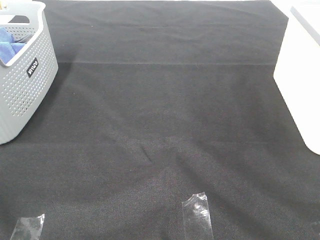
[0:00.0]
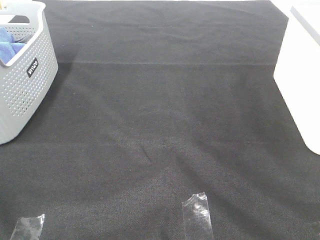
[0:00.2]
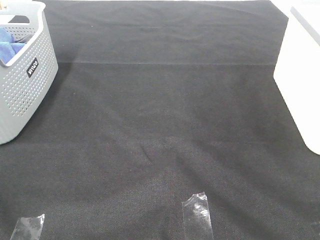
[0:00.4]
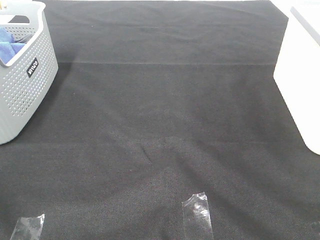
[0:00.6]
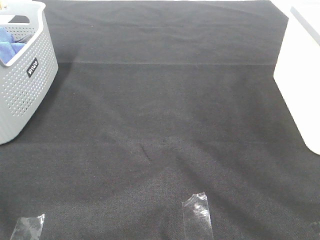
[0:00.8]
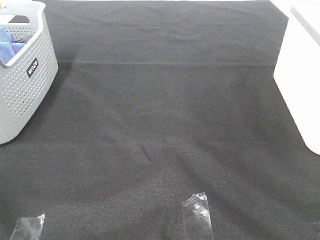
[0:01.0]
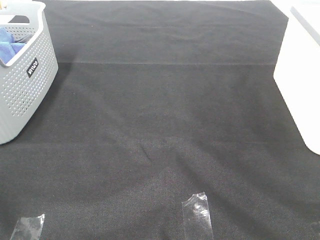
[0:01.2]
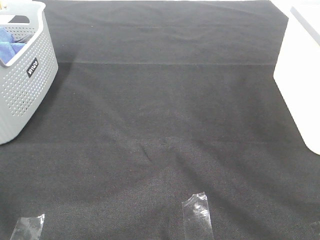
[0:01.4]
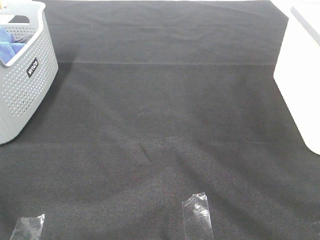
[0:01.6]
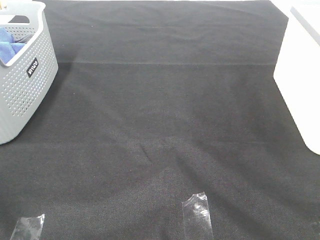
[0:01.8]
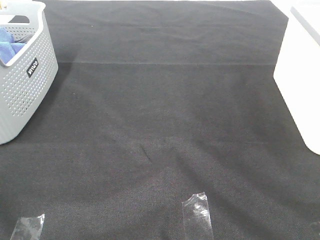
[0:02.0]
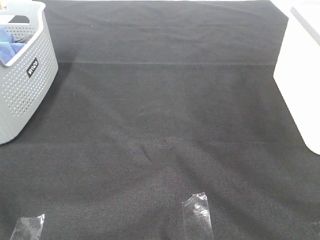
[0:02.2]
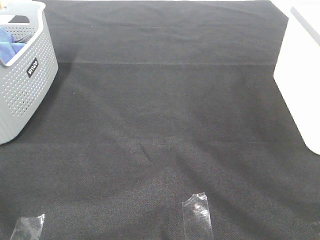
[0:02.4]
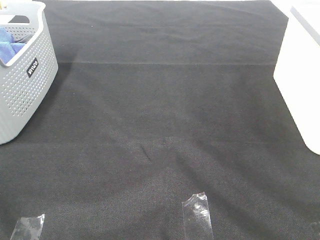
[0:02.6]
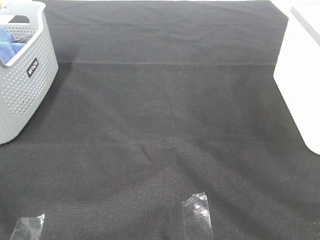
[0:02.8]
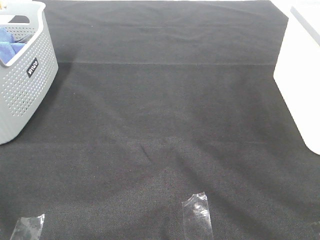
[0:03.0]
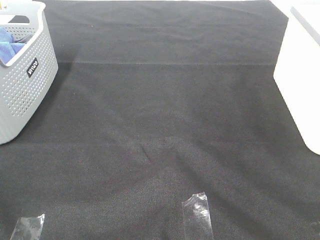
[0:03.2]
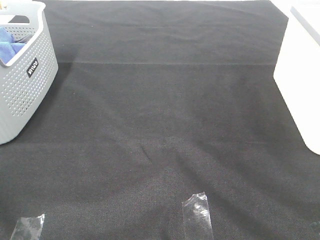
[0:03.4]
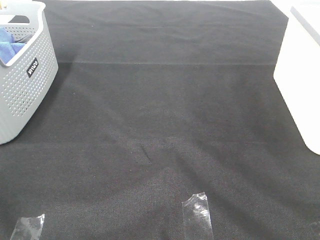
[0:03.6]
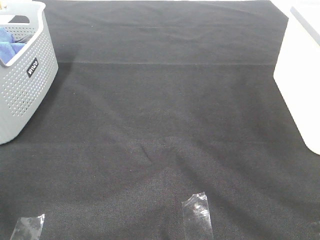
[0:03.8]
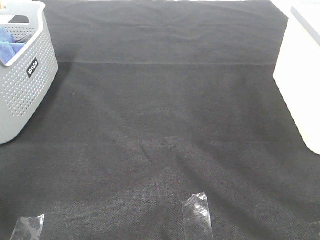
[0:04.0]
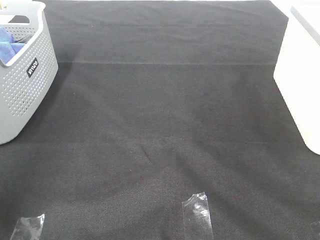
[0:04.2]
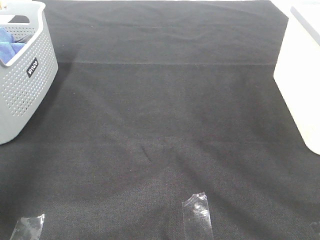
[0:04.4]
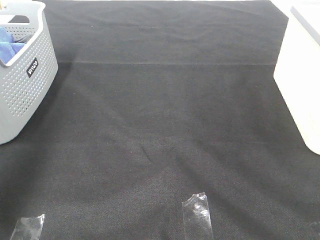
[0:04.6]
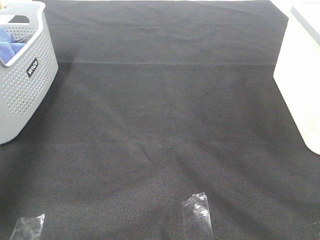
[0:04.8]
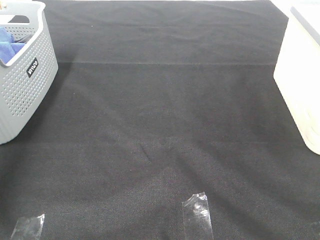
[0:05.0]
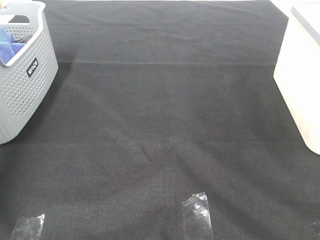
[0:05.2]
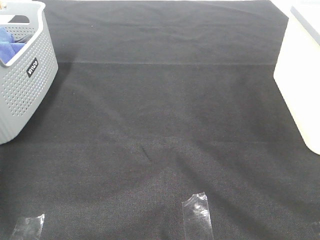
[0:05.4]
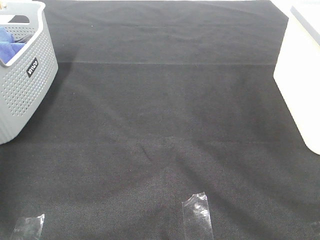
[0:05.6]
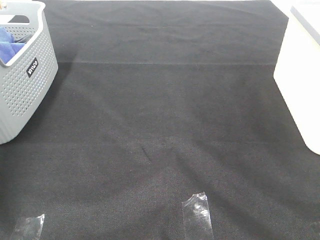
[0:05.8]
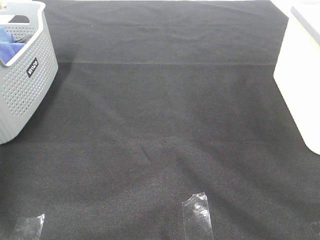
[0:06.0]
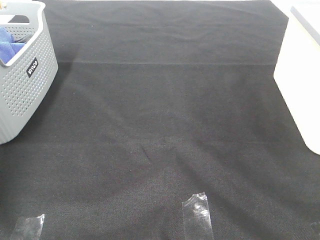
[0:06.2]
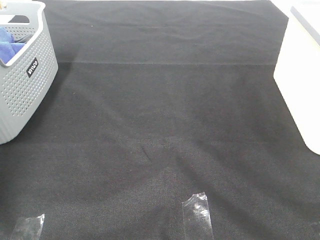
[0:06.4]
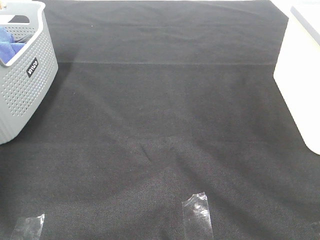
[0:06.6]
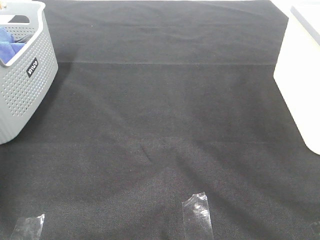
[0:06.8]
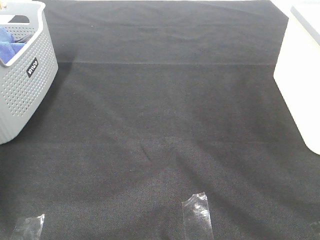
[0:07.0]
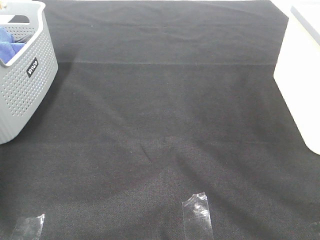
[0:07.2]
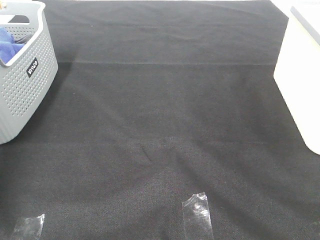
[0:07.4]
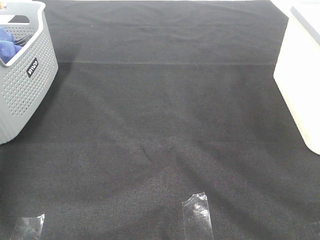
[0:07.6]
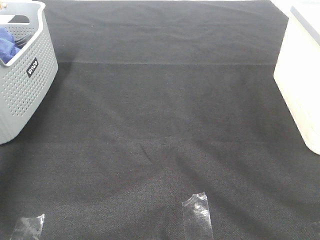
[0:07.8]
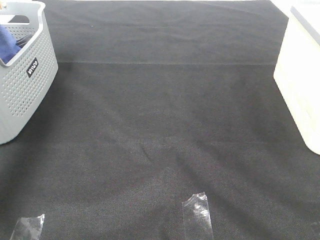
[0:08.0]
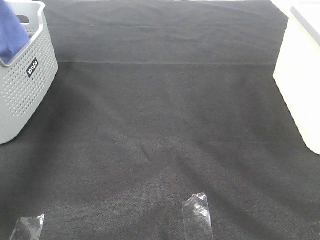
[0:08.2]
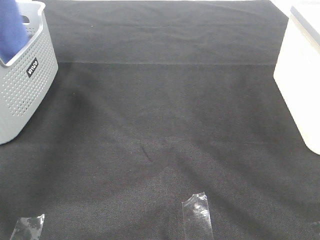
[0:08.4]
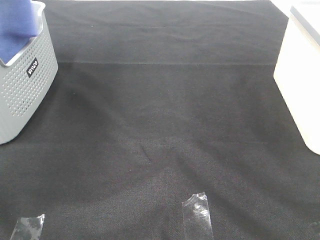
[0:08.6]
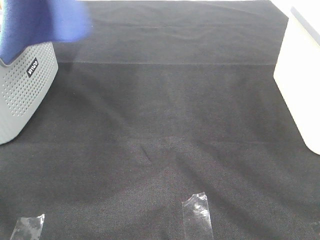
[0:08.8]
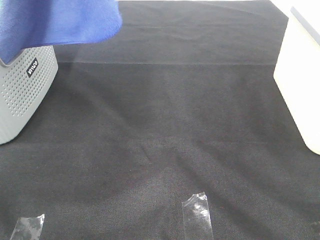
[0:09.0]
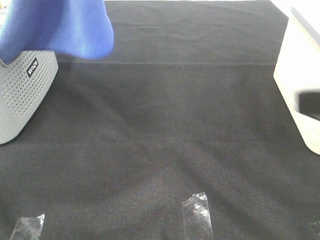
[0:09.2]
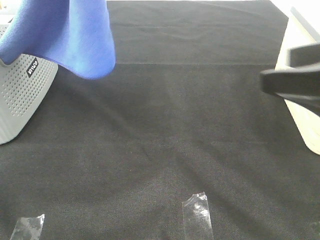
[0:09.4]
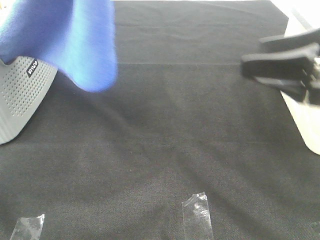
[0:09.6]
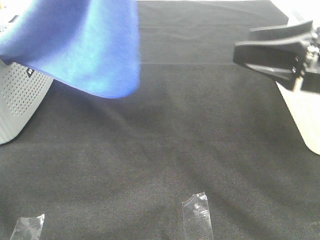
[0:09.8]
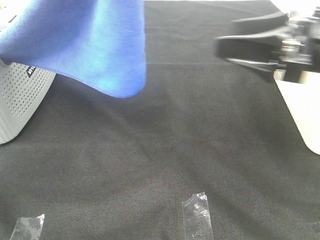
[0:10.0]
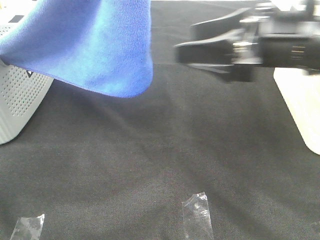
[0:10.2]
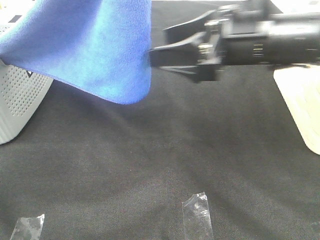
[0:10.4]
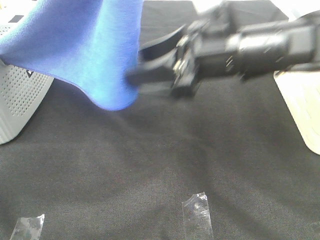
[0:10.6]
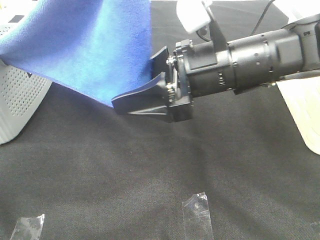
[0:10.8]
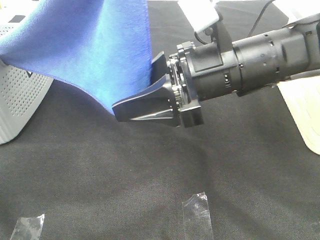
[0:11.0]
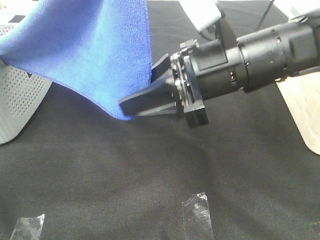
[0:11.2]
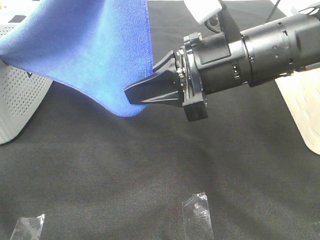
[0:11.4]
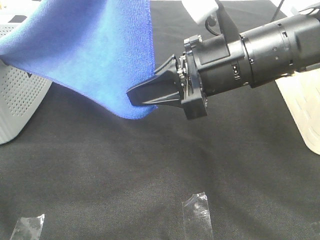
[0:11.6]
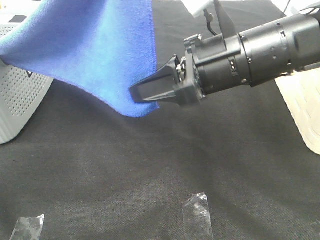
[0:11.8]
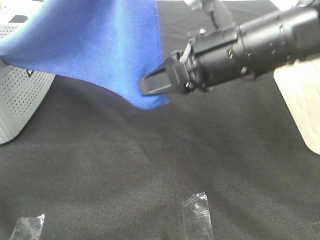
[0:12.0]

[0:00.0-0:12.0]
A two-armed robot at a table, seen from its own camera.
Task of the whole recording: Remove the towel and place it.
Step, 0:08.6 to 0:11.6: Right hand: grab a corner of the blue towel and straighten it.
0:00.0 to 0:03.0: Both grippers stay put.
0:03.0 to 0:04.4: The left gripper moves forward and upward, roughly 20 cm.
0:04.4 to 0:06.0: The left gripper is displaced forward and downward by about 30 cm.
0:07.6 to 0:09.0: The left gripper moves to the right, upward and backward, roughly 35 cm.
0:09.0 to 0:10.4: The right gripper shifts roughly 25 cm forward and to the left; the left gripper travels to the right and backward by roughly 10 cm.
0:10.4 to 0:12.0: The right gripper closes up.

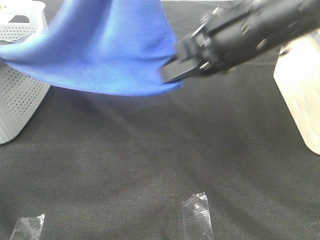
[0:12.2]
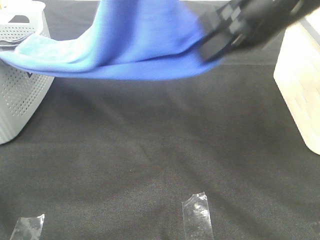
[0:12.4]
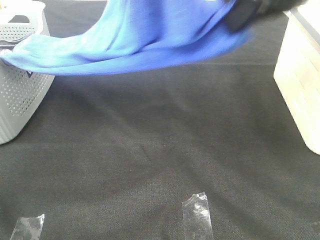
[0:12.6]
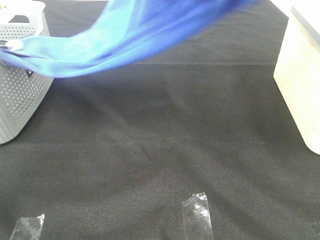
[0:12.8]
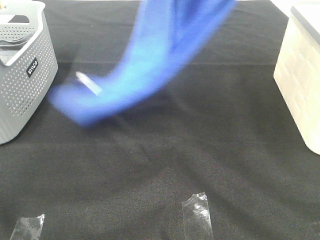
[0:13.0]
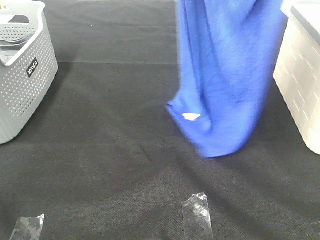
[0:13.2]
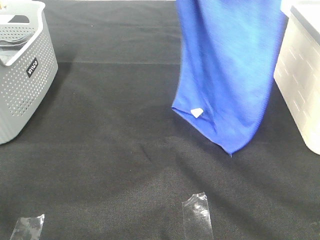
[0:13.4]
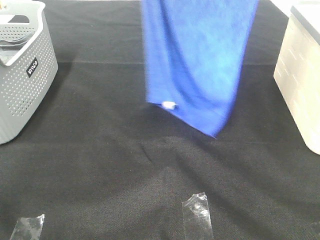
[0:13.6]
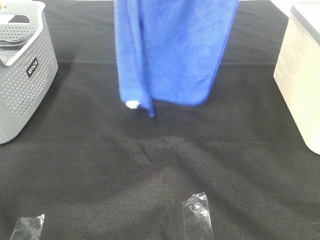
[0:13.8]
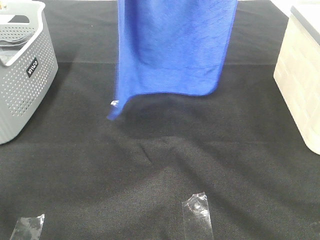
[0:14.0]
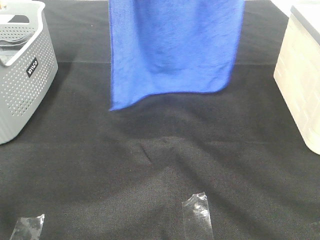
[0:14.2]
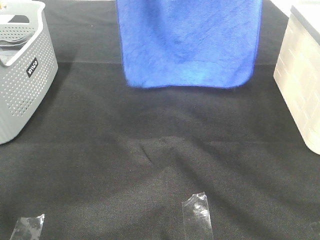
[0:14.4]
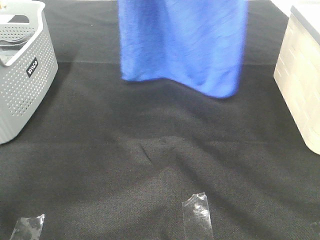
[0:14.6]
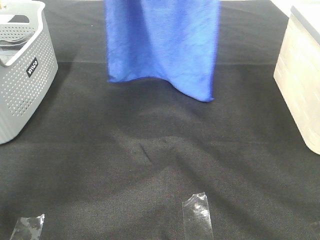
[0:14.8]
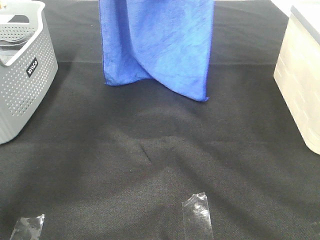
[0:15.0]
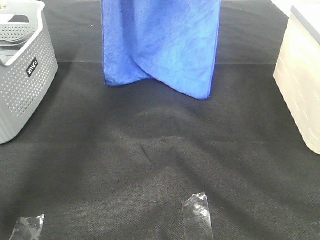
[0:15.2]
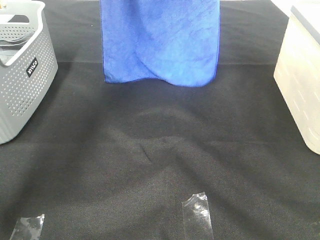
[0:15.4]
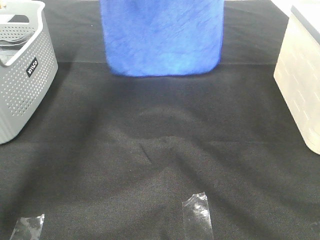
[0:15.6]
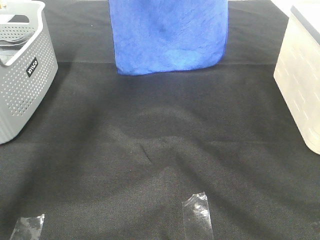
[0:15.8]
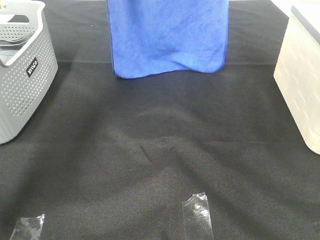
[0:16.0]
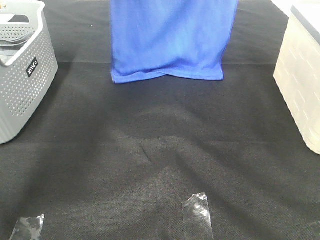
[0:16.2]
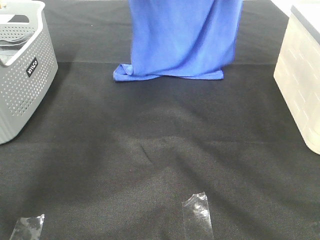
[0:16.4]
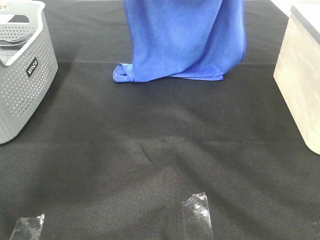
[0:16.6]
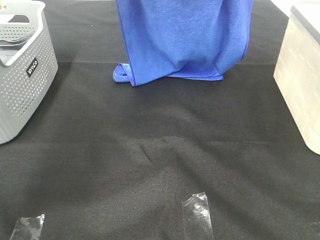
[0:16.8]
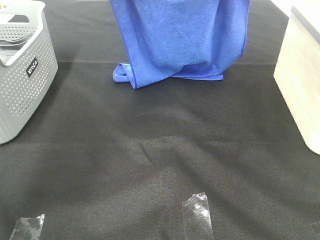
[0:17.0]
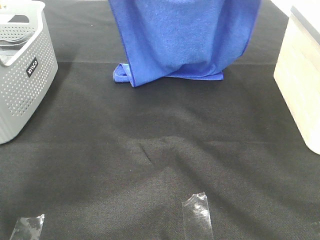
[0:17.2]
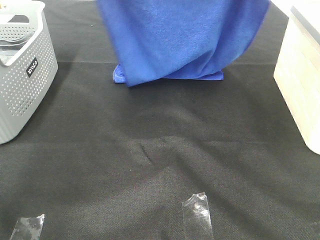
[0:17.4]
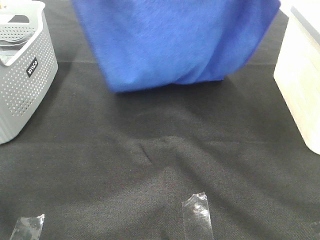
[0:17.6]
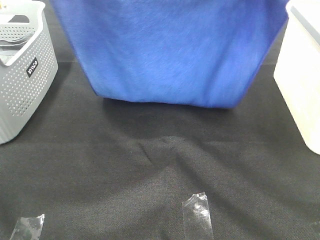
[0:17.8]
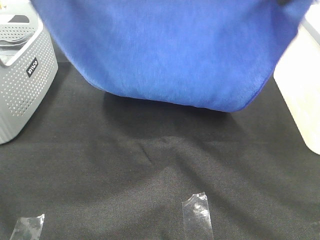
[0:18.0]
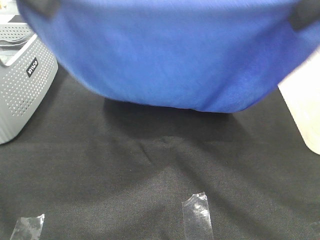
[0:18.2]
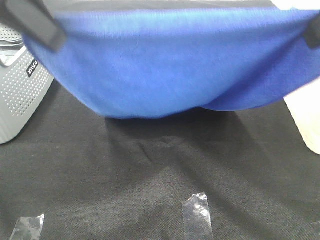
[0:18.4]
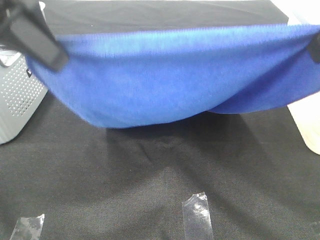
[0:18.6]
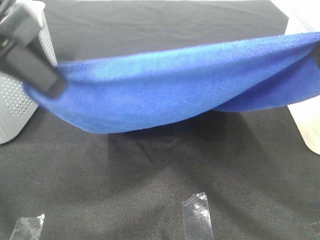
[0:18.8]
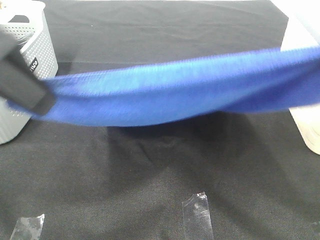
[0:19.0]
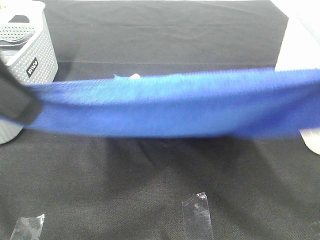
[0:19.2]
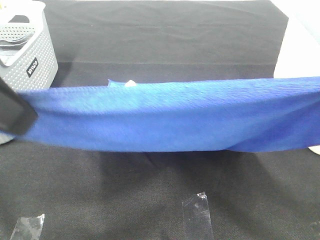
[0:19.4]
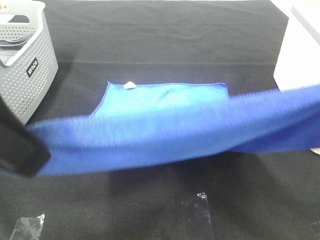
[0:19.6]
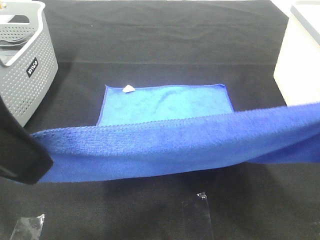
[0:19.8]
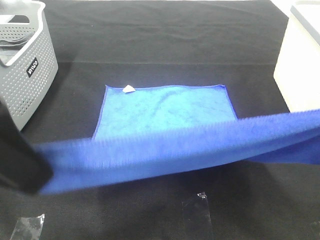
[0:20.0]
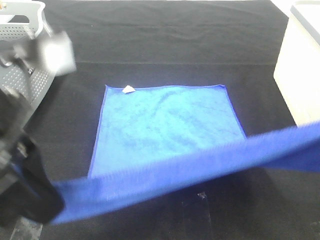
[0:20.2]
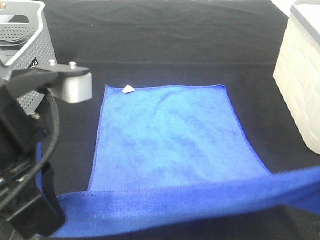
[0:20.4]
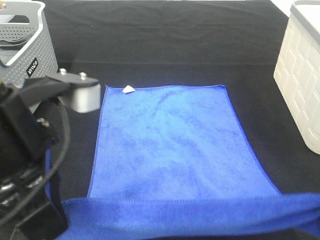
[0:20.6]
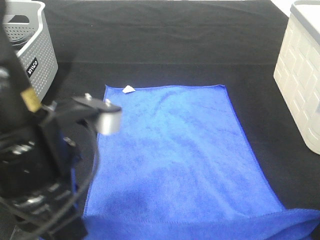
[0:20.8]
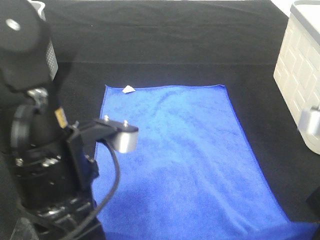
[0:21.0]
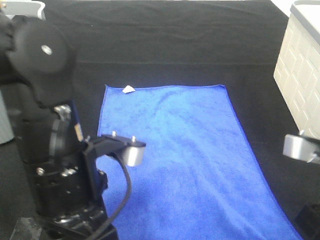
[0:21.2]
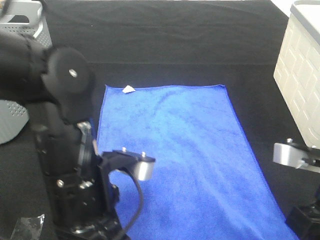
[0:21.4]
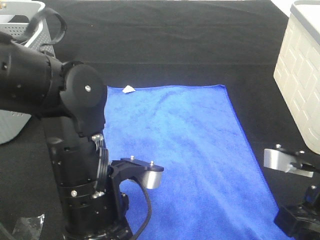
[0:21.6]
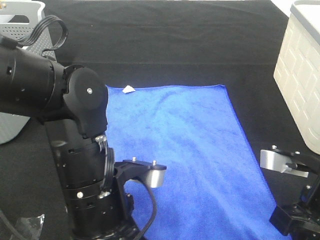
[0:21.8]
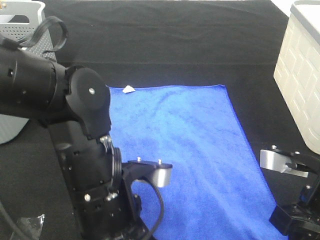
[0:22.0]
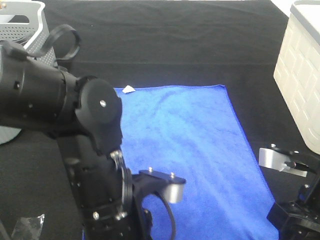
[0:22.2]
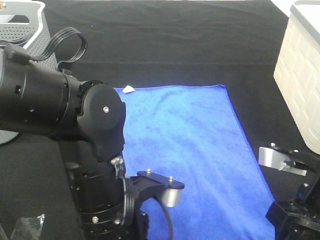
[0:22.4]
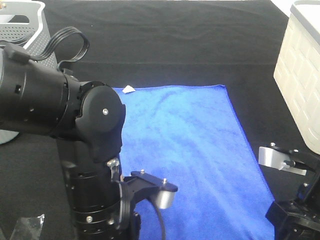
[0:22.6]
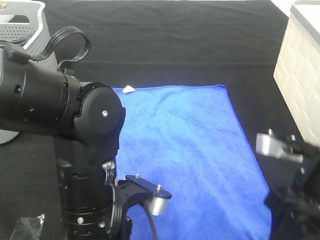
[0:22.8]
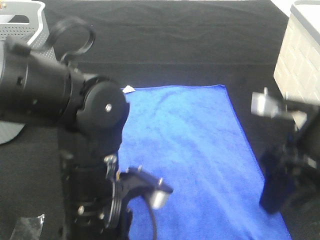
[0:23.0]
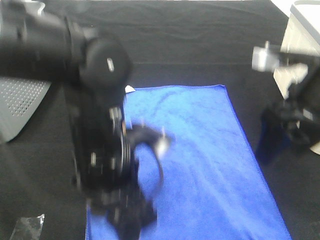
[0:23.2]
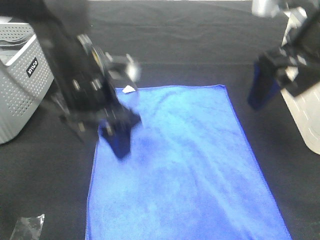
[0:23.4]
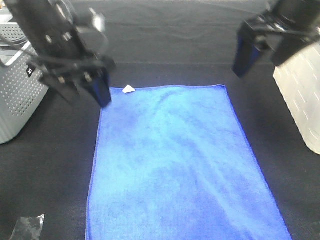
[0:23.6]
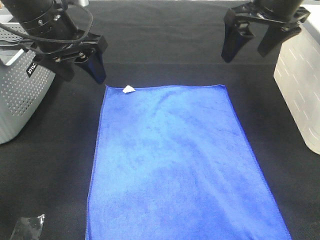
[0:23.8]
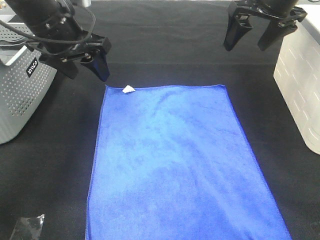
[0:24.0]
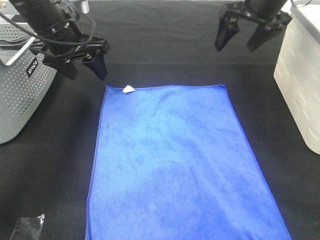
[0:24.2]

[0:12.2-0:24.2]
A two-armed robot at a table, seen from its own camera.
Task of the whole recording: Remove the towel and place it.
Step, 0:12.2 to 0:18.2: Left hand: spread the blue towel flat on the table.
Step, 0:12.2 to 0:18.2: Right hand: spread the blue towel flat on the table.
0:12.2 to 0:13.8: The right gripper moves upward, approximately 25 cm. The left gripper goes some 10 cm forward.
0:13.8 to 0:15.2: Both grippers travel together forward and downward, about 15 cm.
0:15.2 to 0:16.6: The grippers both shift downward by roughly 5 cm.
0:16.6 to 0:18.2: The two grippers go some 25 cm backward.
0:18.2 to 0:19.8: Both grippers move backward, about 10 cm.
0:19.8 to 0:21.2: Both grippers travel together downward, approximately 15 cm.
0:21.2 to 0:22.6: The left gripper ends up some 5 cm from where it was, and opens; the right gripper opens up.
0:22.6 to 0:24.2: The left gripper travels forward and to the left by roughly 30 cm; the right gripper goes roughly 30 cm forward.
